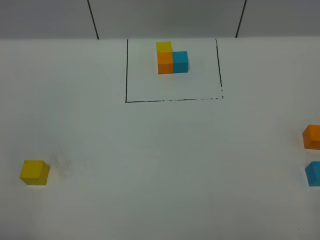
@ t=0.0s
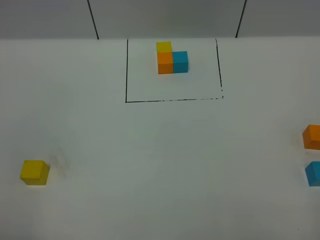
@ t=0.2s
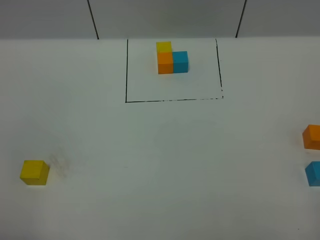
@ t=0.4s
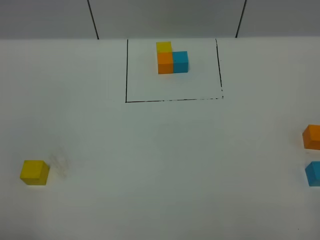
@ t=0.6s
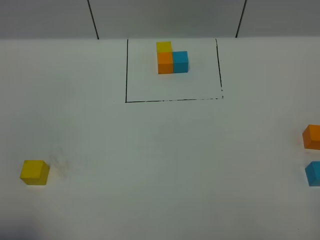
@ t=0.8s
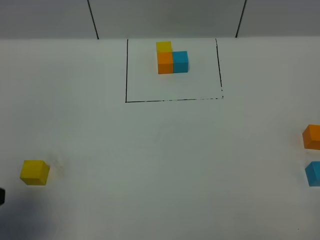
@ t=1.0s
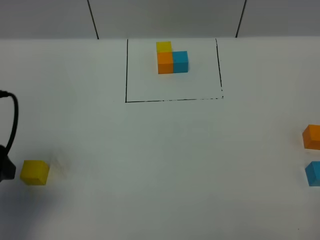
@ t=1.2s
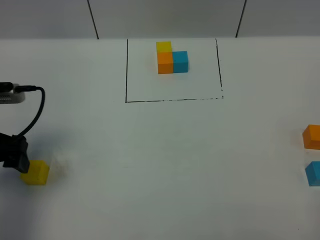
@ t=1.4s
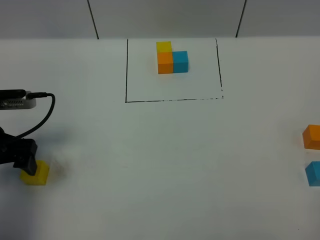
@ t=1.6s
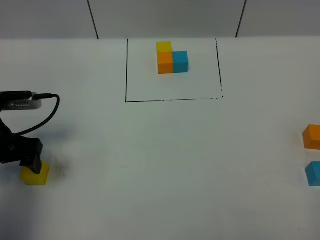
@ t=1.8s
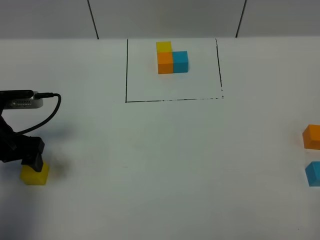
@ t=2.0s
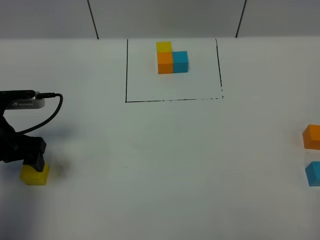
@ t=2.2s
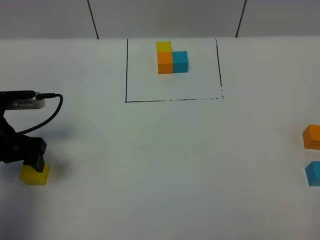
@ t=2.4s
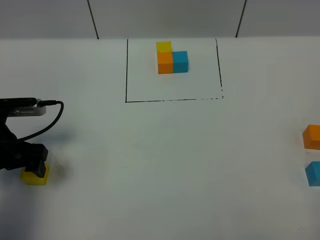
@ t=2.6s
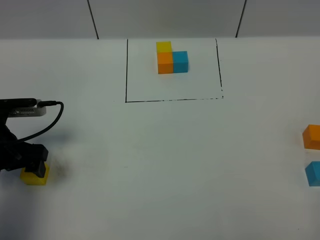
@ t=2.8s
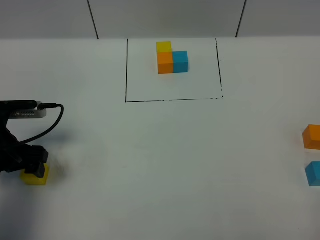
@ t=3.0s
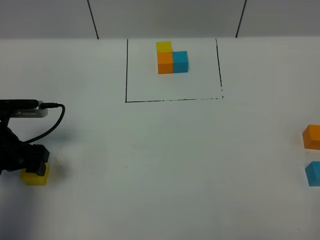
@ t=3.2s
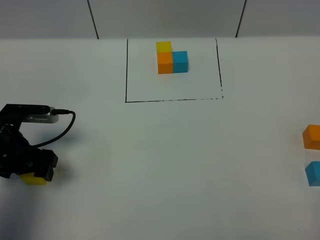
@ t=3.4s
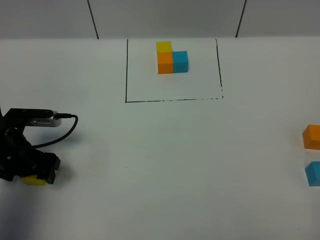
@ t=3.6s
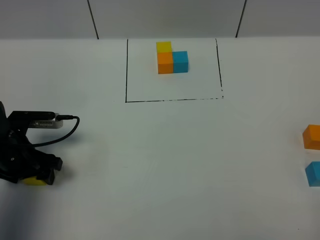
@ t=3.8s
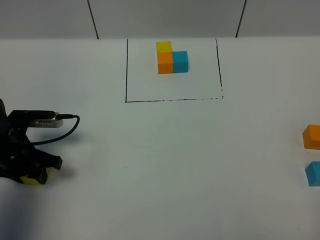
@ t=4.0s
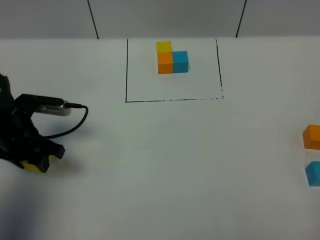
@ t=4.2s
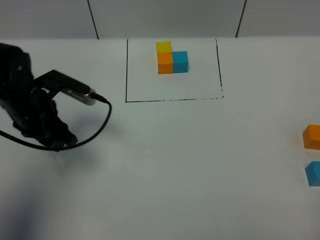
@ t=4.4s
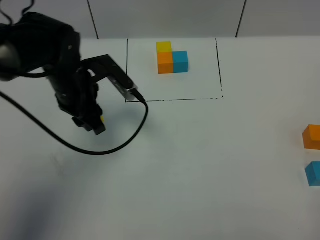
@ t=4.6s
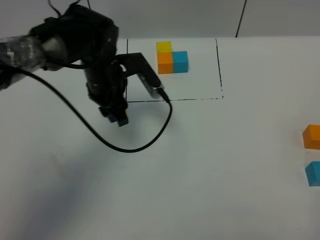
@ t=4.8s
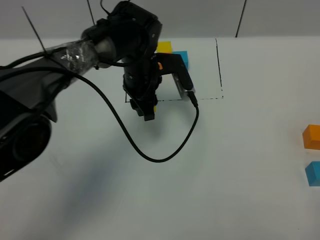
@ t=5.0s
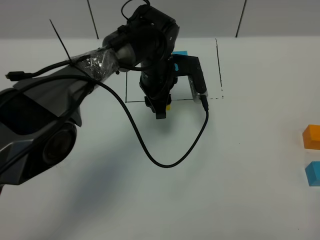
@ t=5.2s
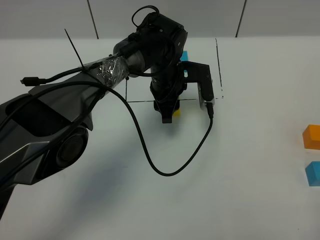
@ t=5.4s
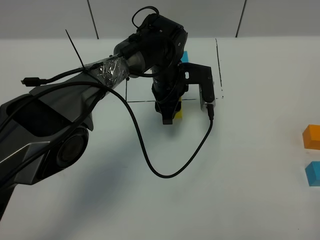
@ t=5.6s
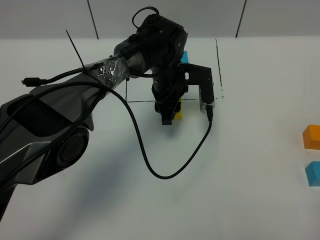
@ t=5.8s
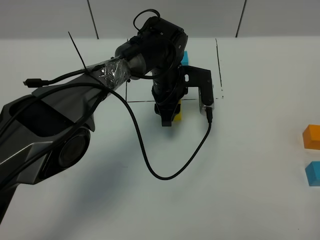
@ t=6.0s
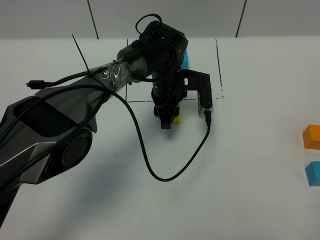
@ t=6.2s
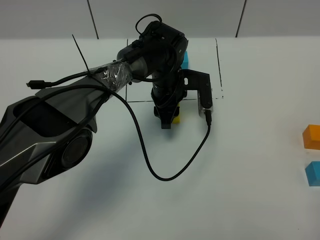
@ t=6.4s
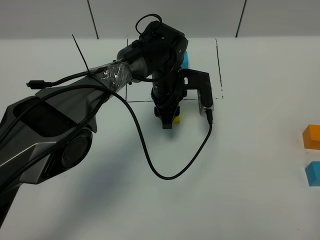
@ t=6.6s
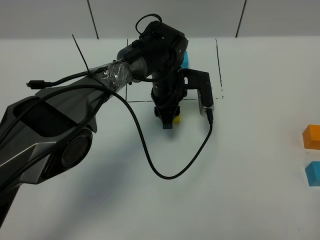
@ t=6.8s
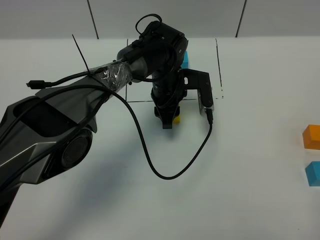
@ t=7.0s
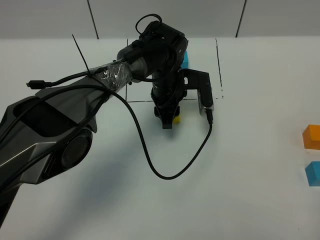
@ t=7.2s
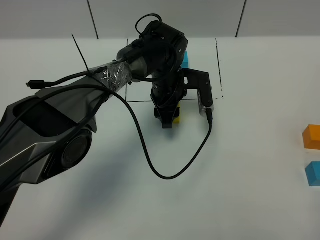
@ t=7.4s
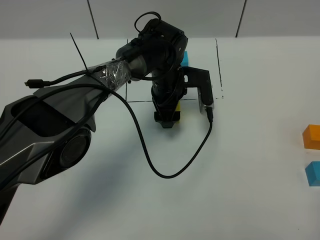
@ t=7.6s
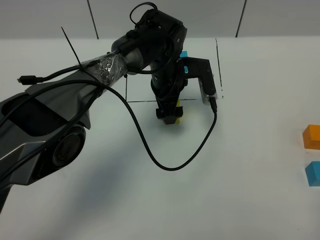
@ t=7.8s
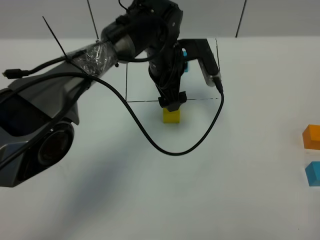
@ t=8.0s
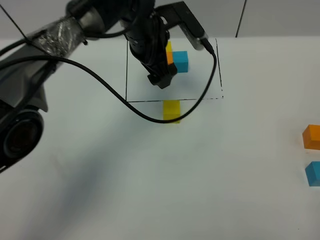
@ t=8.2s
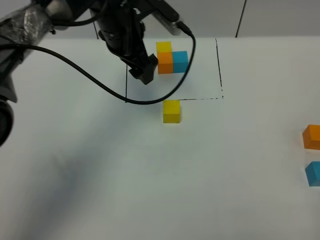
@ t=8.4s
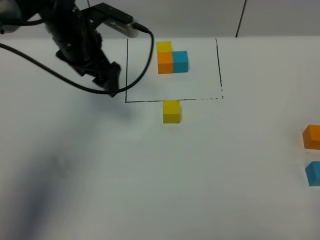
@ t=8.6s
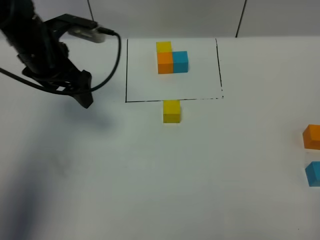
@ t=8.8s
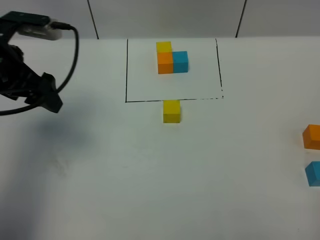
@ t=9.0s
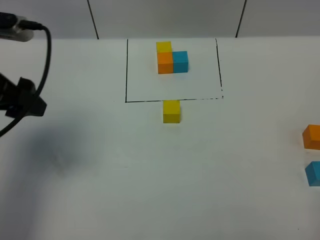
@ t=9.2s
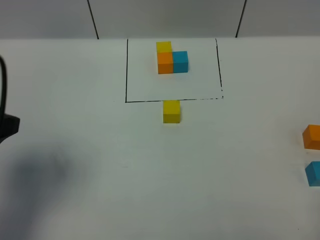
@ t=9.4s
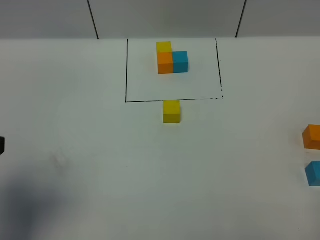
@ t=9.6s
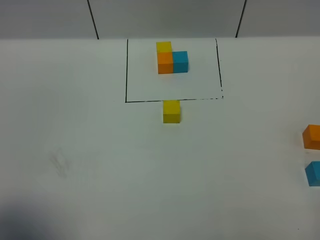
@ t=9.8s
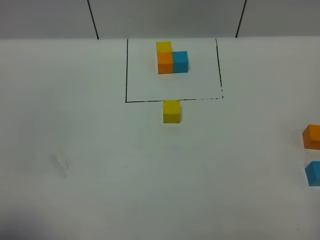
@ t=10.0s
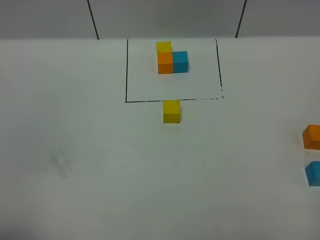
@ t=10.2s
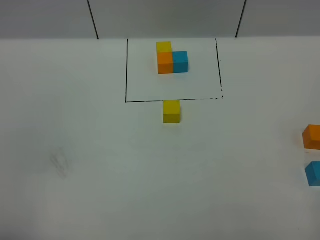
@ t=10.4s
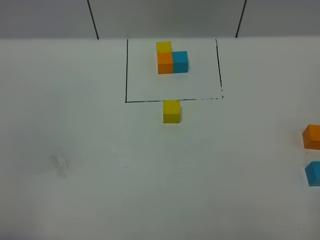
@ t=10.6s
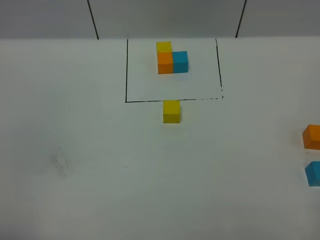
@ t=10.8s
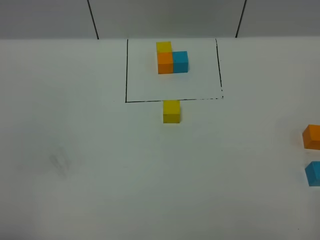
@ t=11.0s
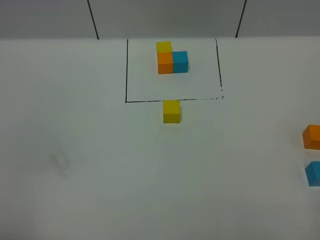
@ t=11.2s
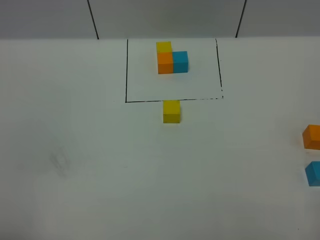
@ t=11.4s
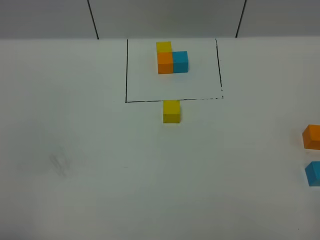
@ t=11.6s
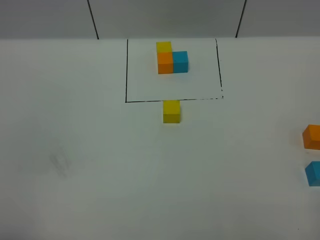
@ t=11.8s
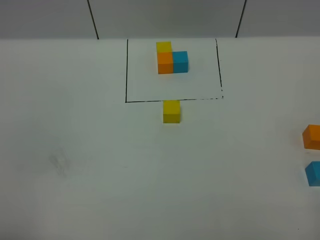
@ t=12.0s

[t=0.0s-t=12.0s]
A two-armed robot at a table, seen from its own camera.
Task of the whole recording: According to the building block template in front, assemble the scattered blocks together.
Step, t=0.0s to t=7.4s: Put the yellow build block in the center of the table.
t=0.0s to t=1.6s: The left gripper travels forward by approximately 25 cm.
t=1.6s to t=3.0s: The grippers make only small movements.
t=3.0s to t=4.4s: The left gripper moves to the right and forward, some 10 cm, and closes up.
t=4.4s to t=6.0s: The left gripper moves to the right and forward, roughly 25 cm.
t=6.0s to t=7.6s: The left gripper opens up.
t=7.6s to t=9.0s: The left gripper heads to the left, upward and backward, covering about 35 cm.
t=9.0s to t=10.4s: The left gripper shifts some 30 cm backward.
t=10.4s to t=12.0s: The two grippers keep their place.

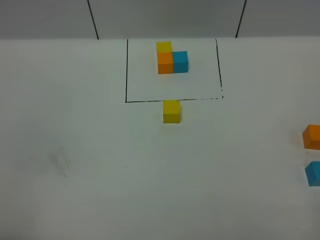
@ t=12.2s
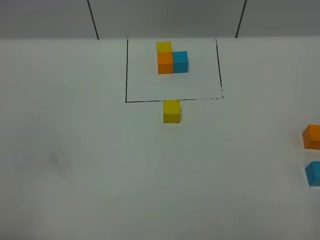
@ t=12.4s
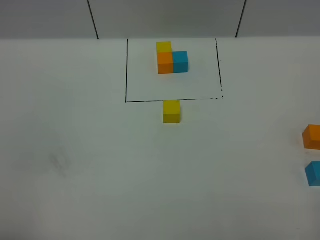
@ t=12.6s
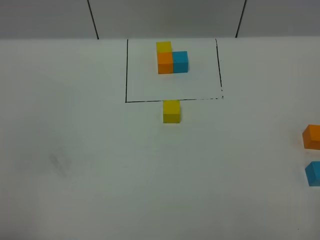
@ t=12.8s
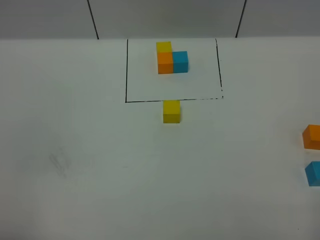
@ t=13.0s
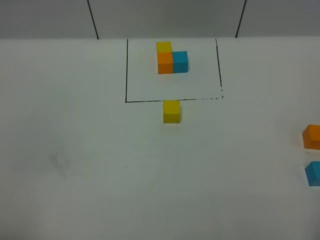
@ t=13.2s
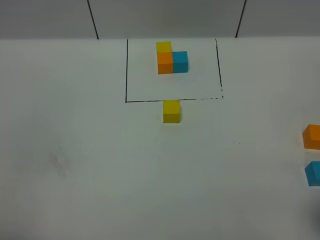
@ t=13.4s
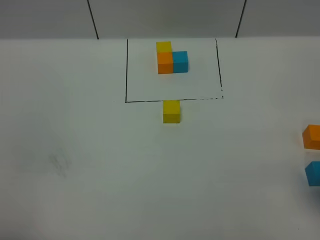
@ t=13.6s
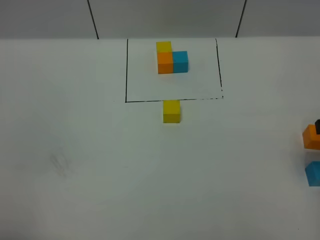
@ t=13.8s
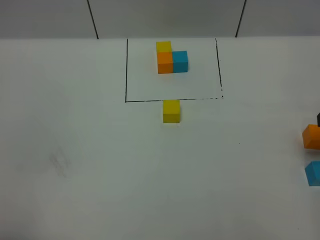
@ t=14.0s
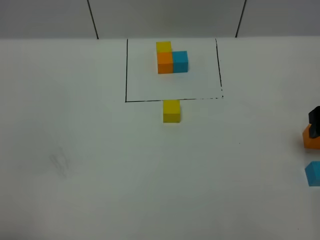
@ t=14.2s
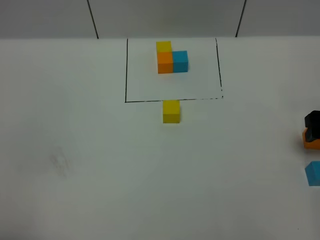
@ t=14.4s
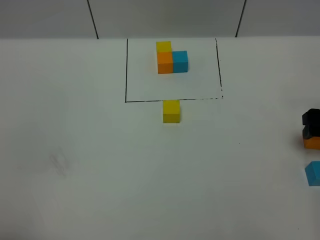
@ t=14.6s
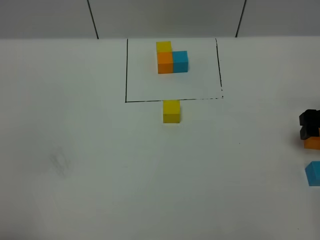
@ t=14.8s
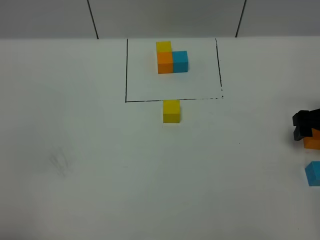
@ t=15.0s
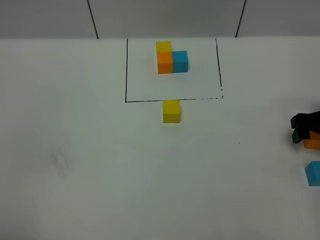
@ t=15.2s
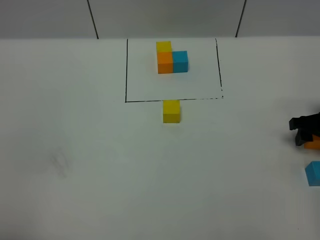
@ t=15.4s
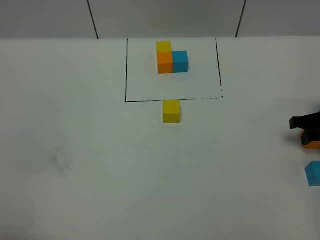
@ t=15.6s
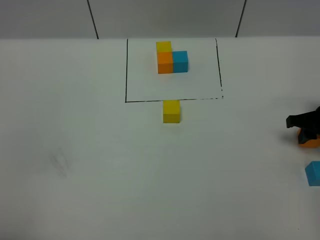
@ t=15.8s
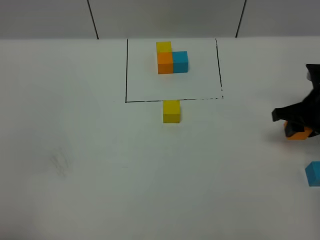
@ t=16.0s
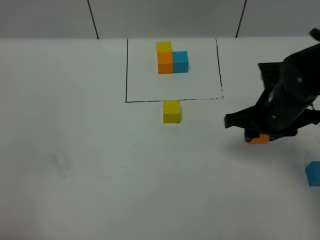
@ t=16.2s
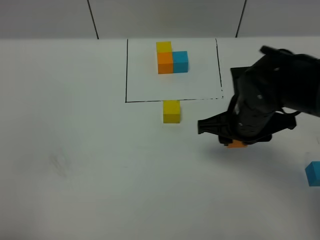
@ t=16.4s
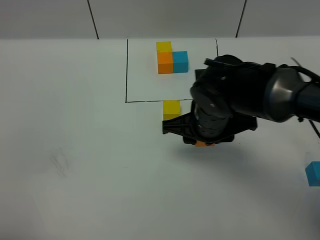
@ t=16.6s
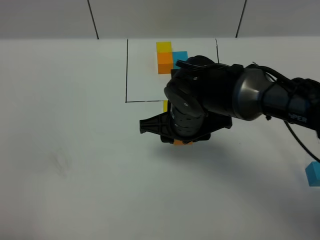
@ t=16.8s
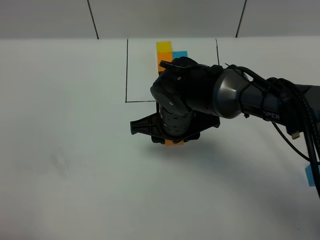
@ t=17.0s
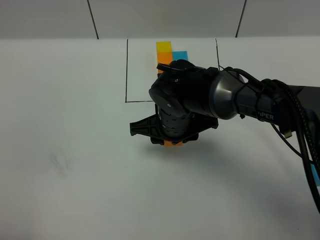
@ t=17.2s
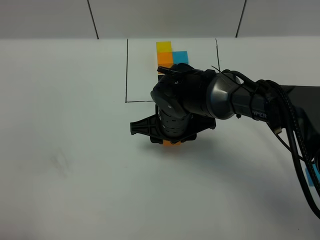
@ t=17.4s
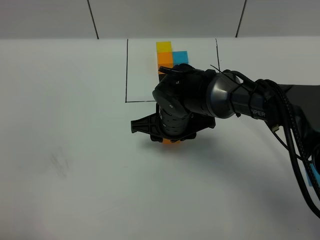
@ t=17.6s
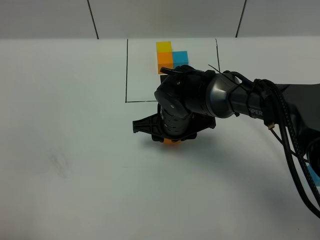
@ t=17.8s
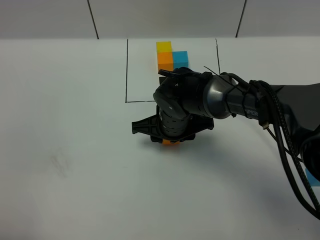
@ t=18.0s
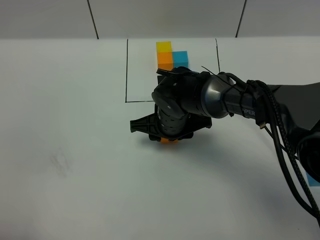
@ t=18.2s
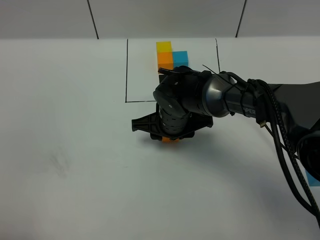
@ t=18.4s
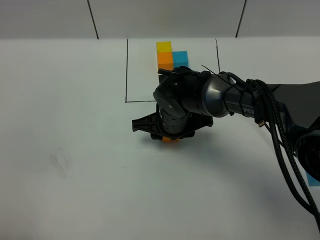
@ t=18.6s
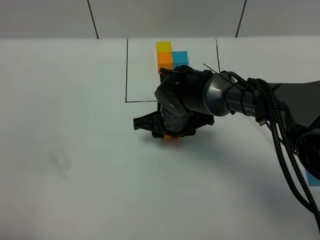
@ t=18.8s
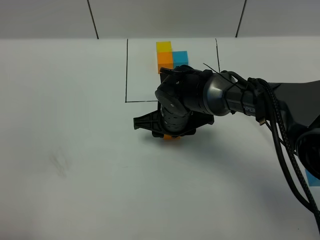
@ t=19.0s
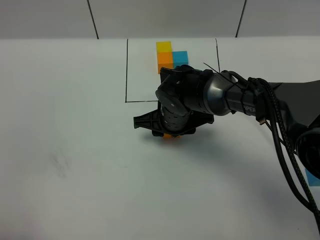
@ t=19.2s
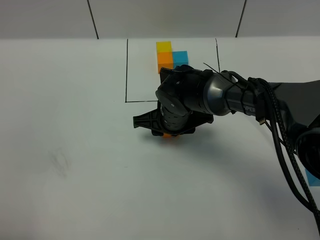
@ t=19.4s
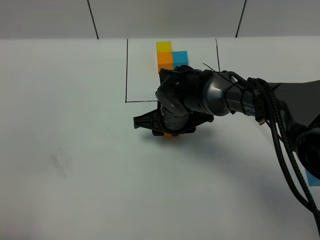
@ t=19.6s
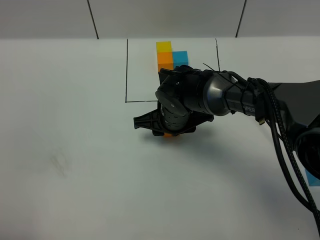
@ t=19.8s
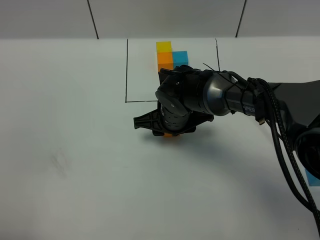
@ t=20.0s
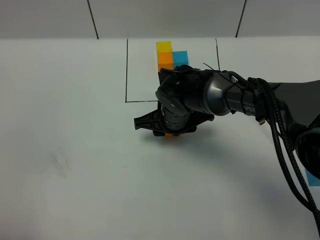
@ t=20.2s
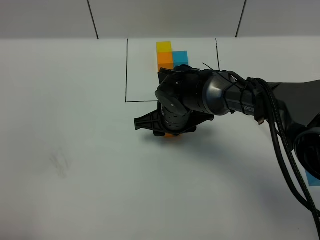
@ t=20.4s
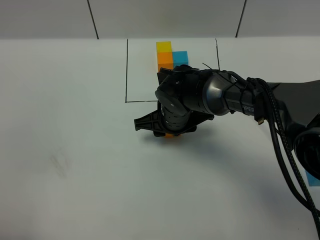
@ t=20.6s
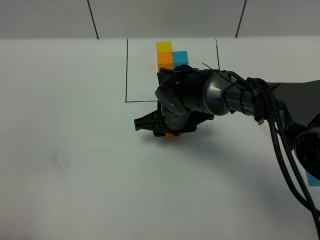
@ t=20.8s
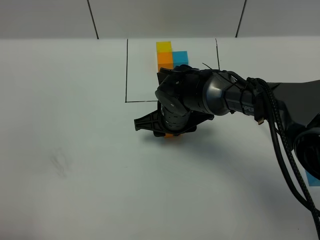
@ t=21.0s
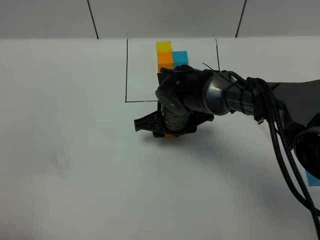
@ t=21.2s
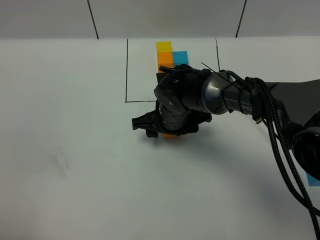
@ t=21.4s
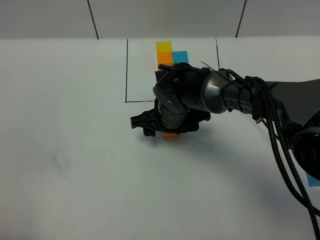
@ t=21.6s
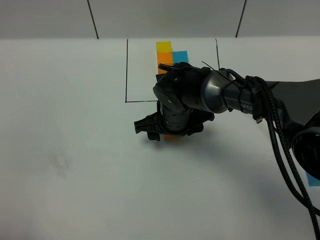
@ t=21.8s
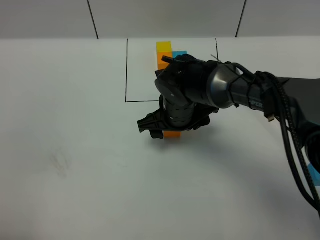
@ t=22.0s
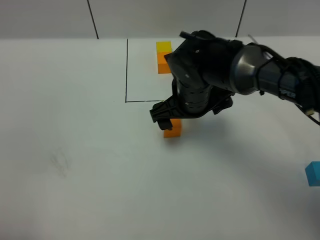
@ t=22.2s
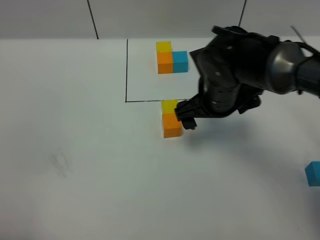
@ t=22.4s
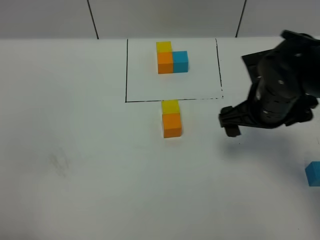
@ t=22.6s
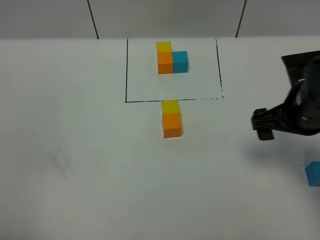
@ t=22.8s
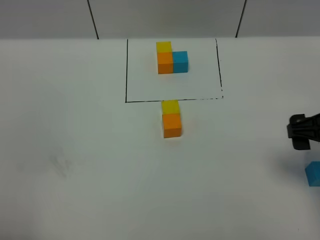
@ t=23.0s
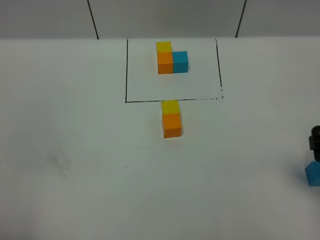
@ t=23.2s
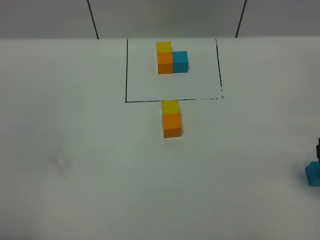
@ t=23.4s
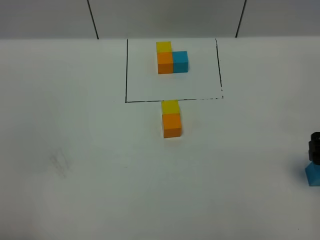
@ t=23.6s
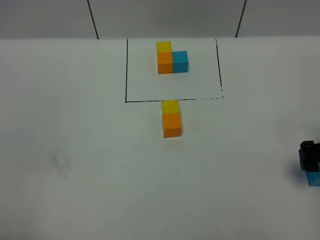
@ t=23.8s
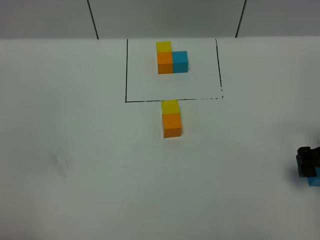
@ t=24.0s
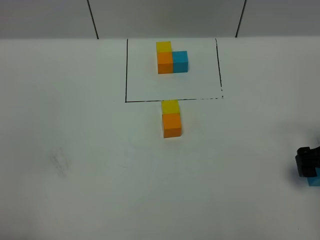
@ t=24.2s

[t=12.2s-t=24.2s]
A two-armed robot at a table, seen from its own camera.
Task of the whole recording: According to the building block template in front, assemble the scattered blocks together.
Step, t=12.2s to t=21.6s: Put the orange build block on the behind of the yellow build block.
t=13.8s to t=15.2s: The right gripper goes approximately 15 cm downward and forward.
t=15.2s to t=16.6s: The right gripper heads to the left, covering about 25 cm, and closes up.
t=16.6s to t=18.2s: The right gripper is displaced downward by roughly 5 cm.
t=18.2s to t=19.8s: Both grippers stay about where they are.
t=19.8s to t=21.2s: Both grippers stay about where they are.
t=21.2s to t=22.6s: The right gripper is displaced to the right and upward by some 20 cm, and opens its fingers.
t=22.6s to t=24.2s: The right gripper travels to the right and downward by approximately 15 cm.
